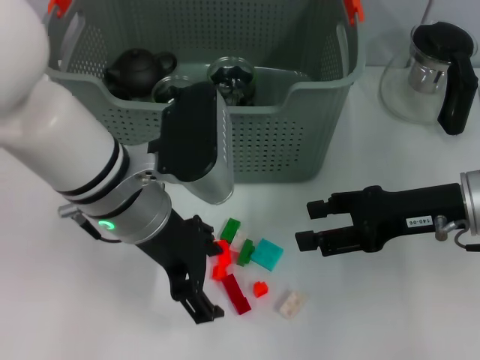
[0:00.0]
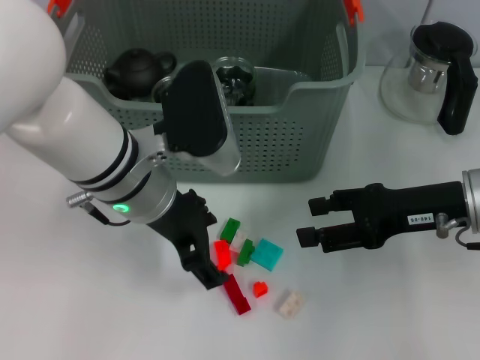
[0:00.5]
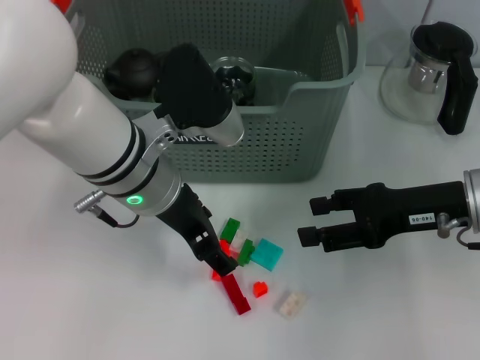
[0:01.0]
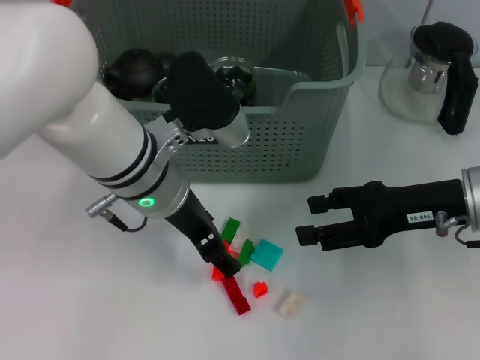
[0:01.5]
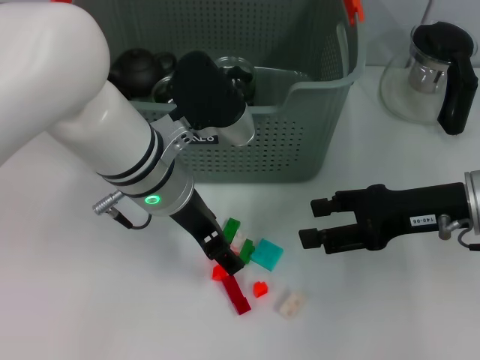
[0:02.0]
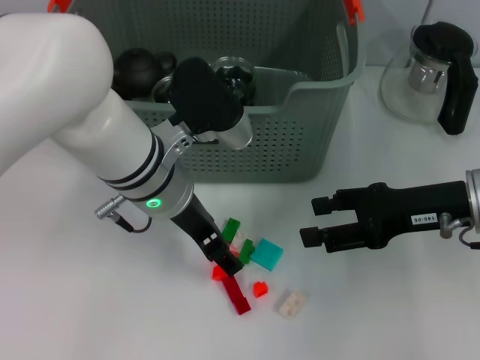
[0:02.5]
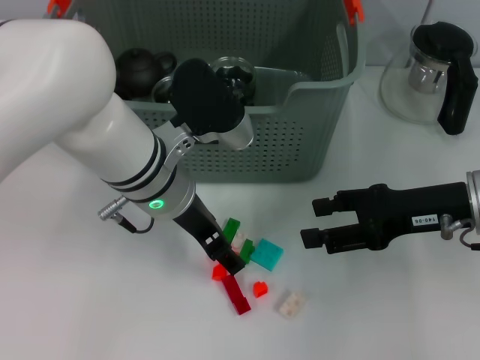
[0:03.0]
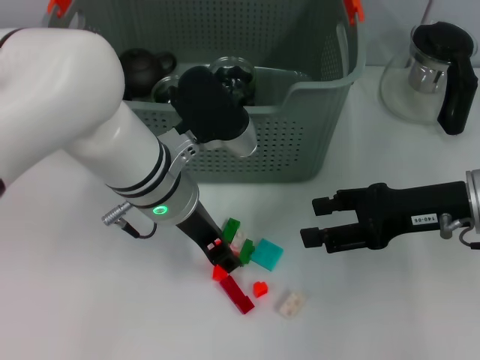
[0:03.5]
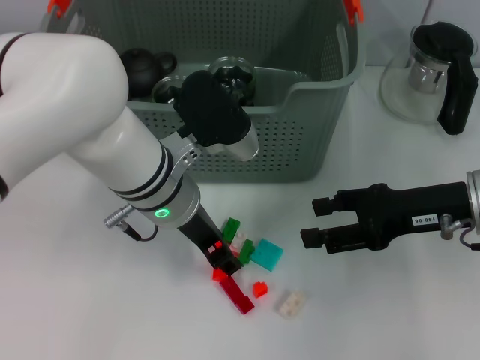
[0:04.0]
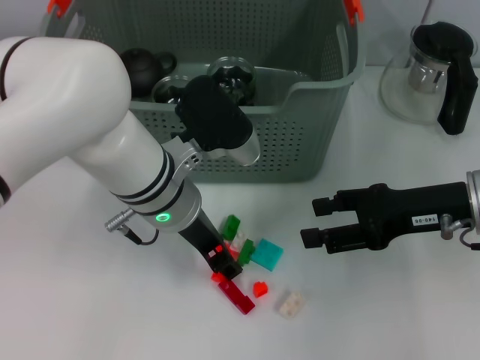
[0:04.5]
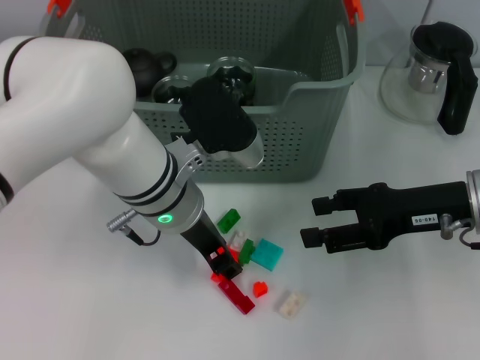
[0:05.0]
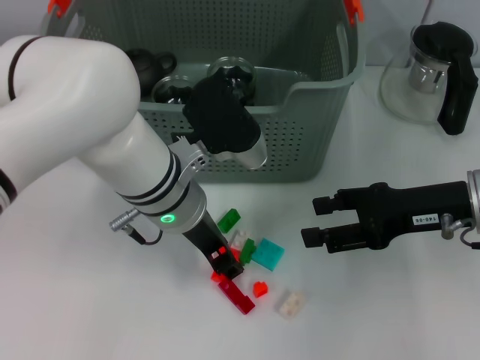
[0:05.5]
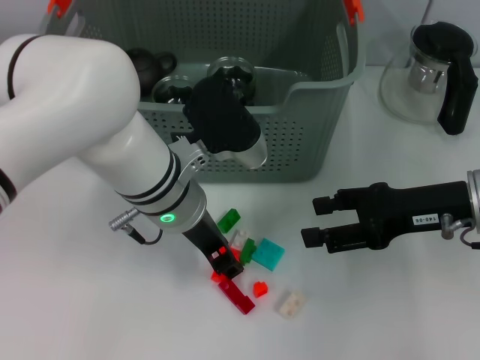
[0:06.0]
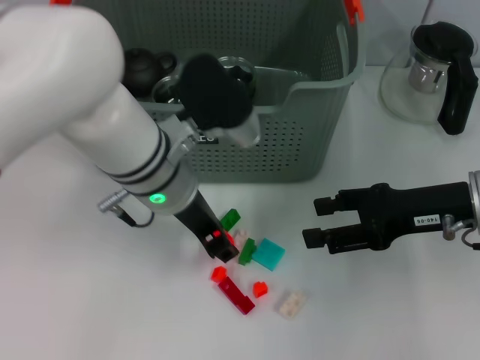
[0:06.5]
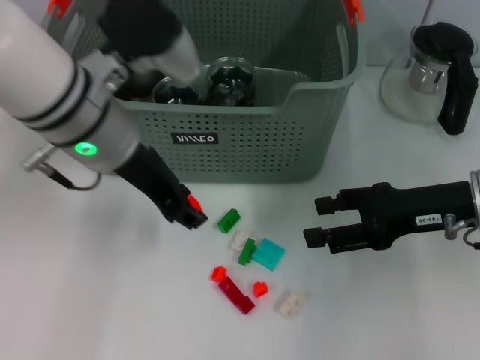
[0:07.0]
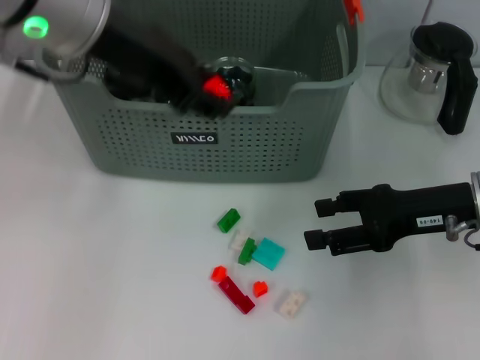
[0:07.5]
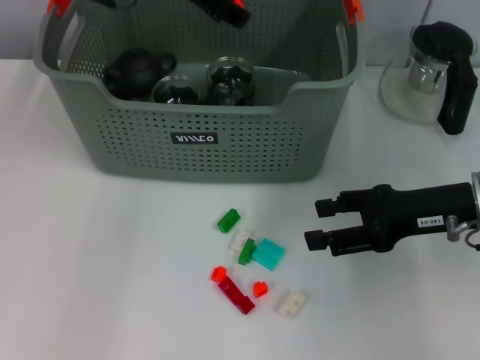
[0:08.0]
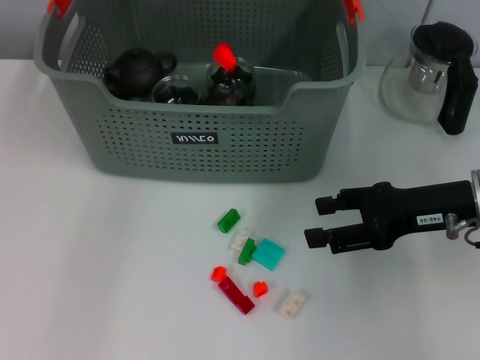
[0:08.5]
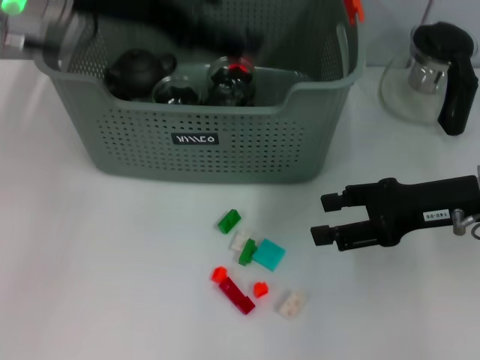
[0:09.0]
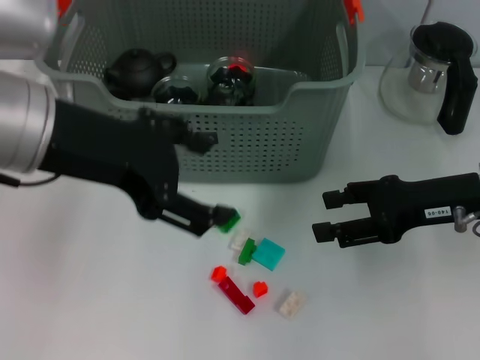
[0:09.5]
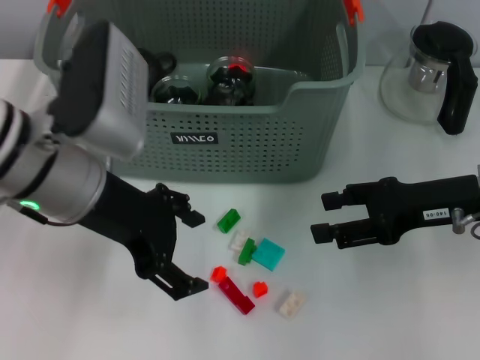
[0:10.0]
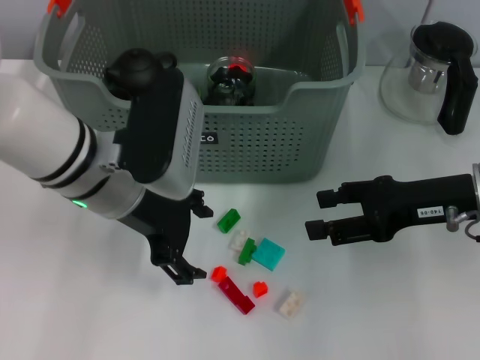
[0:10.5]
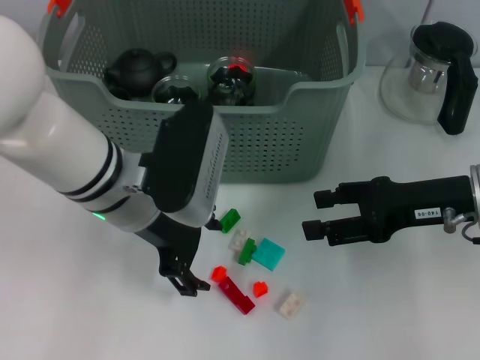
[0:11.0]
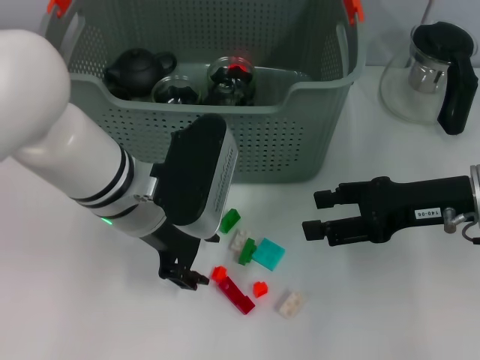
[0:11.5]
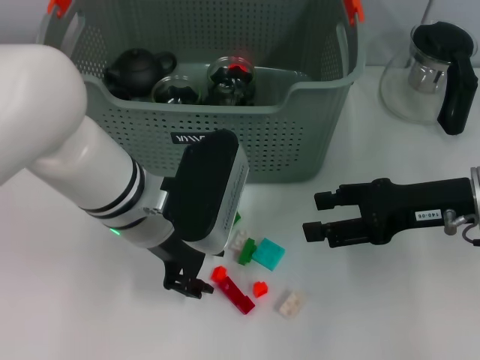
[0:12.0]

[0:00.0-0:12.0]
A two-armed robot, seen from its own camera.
Task of the whole recording: pick up the teacup on the table and place it into the storage bin, pick up the block on the table and place it into the storage bin.
Step, 0:00.0 to 0:06.0: Grasp the orange block with left gripper.
Step, 0:06.5 to 0:08.0: Place the orange block in the storage box with left gripper.
0:02.0 to 0:04.0: The left gripper closes.
0:04.0 to 0:06.0: Both grippers stay put.
0:06.0 to 0:08.0: The left gripper travels upward and forward by roughly 20 cm.
0:08.0 to 0:10.0: The left gripper heads backward and downward, covering about 15 cm, and opens.
0:10.0 to 0:12.0: The left gripper is displaced downward and to the right by about 10 cm, and closes up.

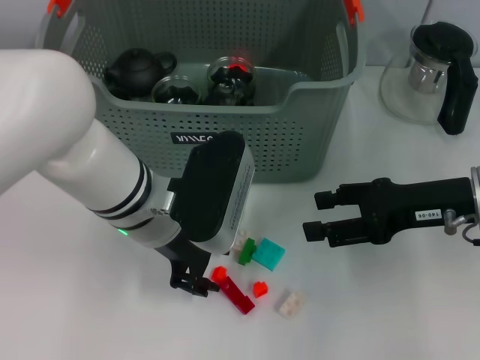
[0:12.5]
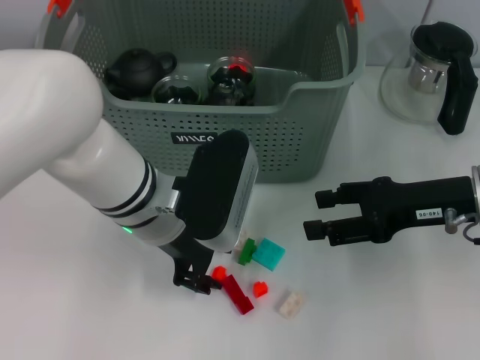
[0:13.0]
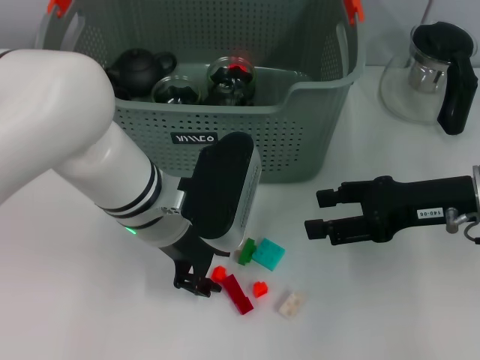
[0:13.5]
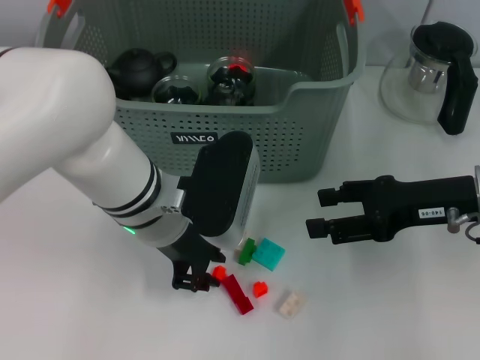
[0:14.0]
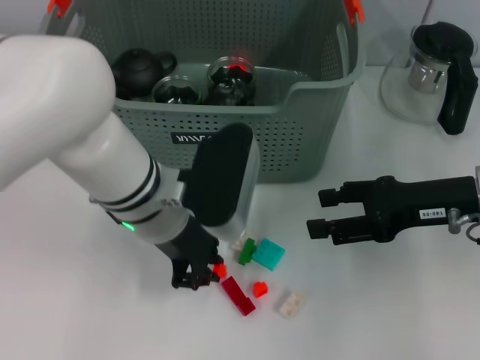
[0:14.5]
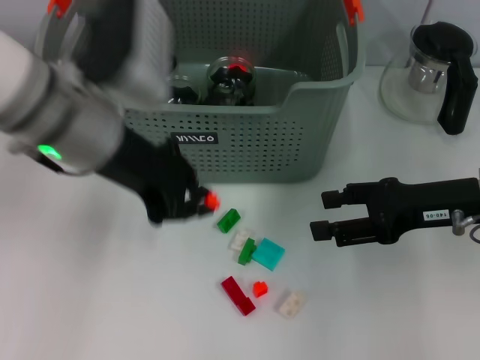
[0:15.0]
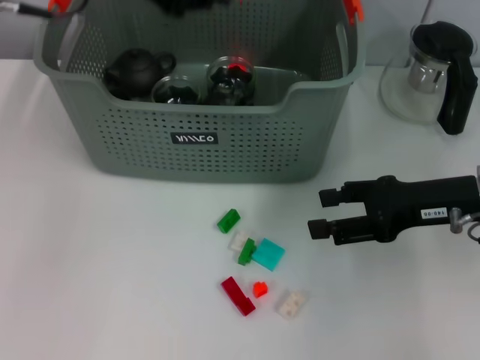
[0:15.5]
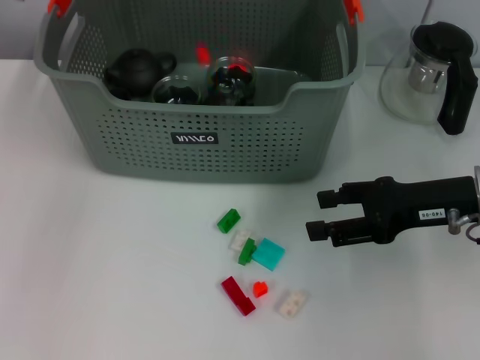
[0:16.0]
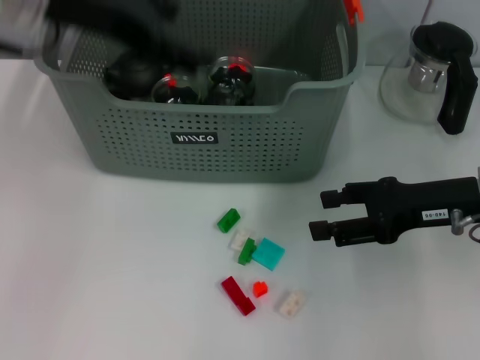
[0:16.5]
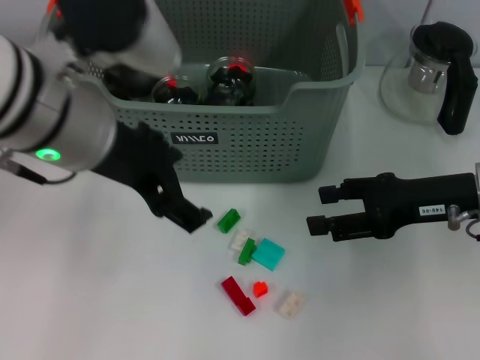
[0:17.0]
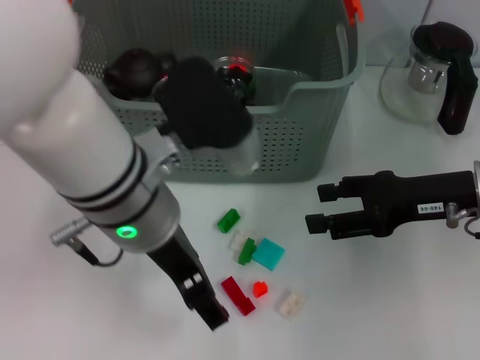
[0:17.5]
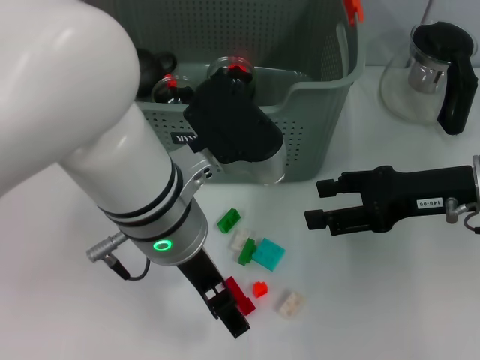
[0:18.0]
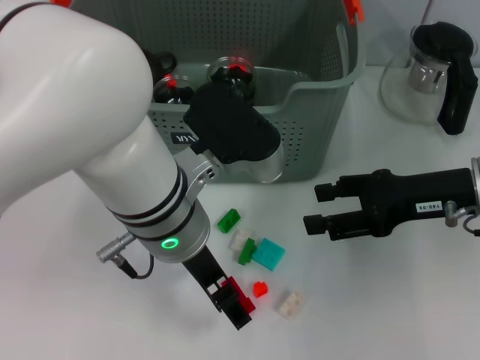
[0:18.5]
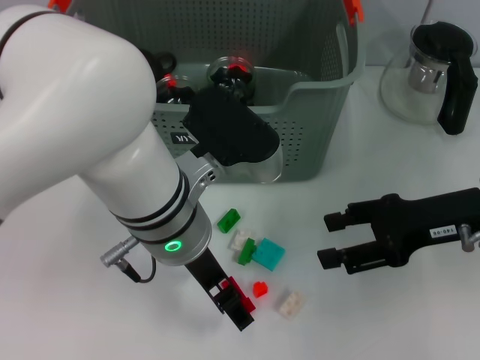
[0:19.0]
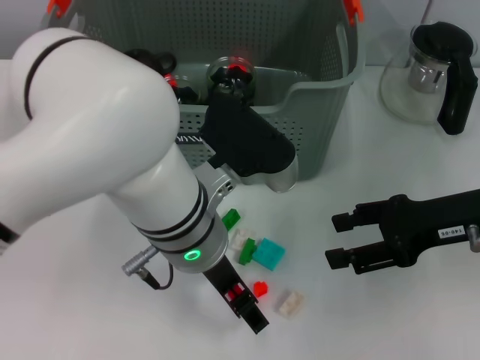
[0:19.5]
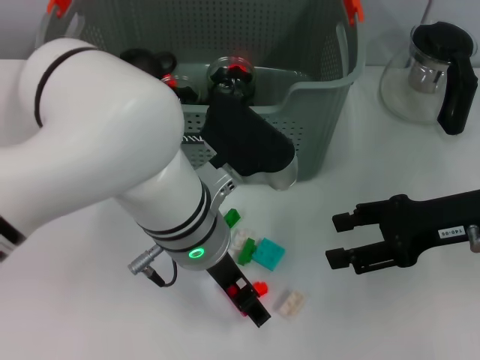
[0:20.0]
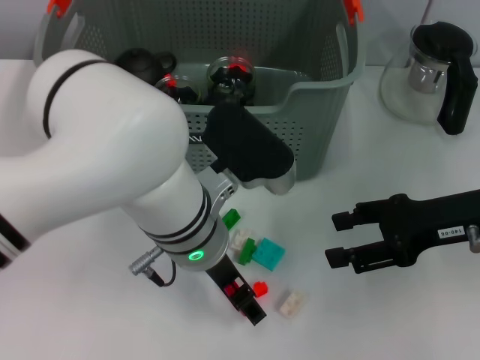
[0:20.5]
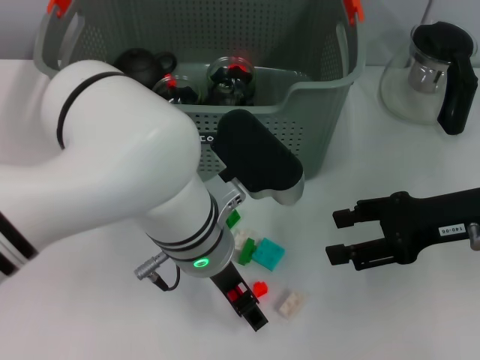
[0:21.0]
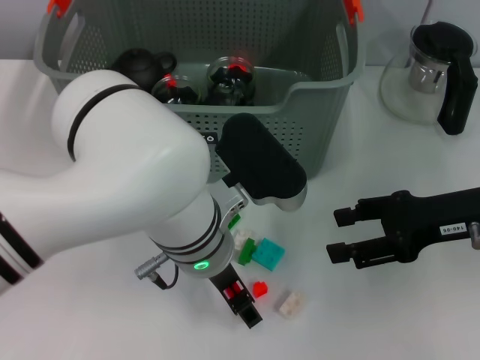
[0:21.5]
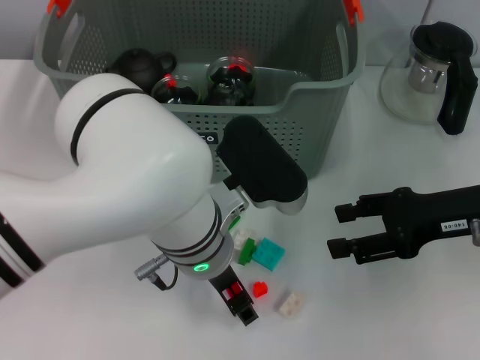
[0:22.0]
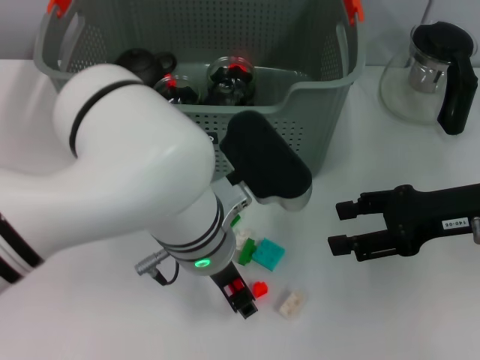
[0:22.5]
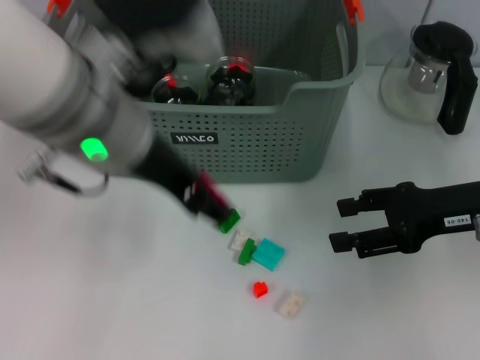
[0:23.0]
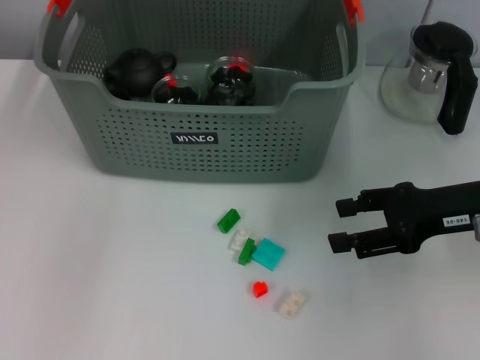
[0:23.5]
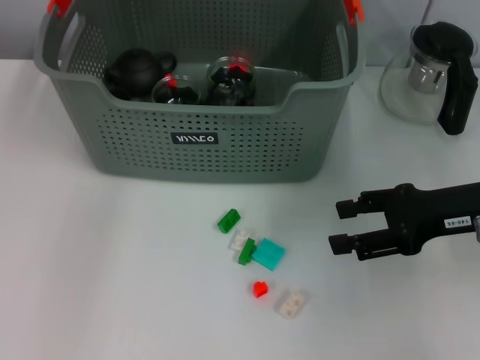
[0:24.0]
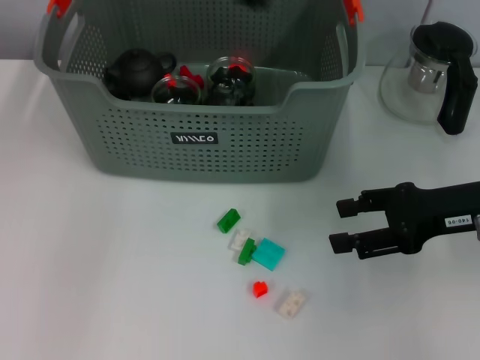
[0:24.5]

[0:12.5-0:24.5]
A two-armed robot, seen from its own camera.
Task of the whole recording: pick up the teacup on the table and place it into the storage bin, pick up the block on the table and place it into the storage bin.
Step, 0:14.5 to 0:15.5: Place the orange block in the storage box with left gripper.
Step, 0:16.5 to 0:22.0: Grasp the red block with left gripper.
Step, 0:22.5 to 0:23.5: Place the red block in the storage box with left gripper.
0:12.5 to 0:14.5: The left gripper closes up.
0:14.5 to 0:16.5: The left gripper heads upward and to the left, covering about 20 cm, and opens up.
0:16.5 to 0:18.5: The left gripper is displaced downward, to the right and backward by roughly 20 cm.
0:20.5 to 0:22.5: There are only small adjustments of the grippers.
0:22.5 to 0:24.5: The left gripper travels upward, to the left and forward by roughly 25 cm.

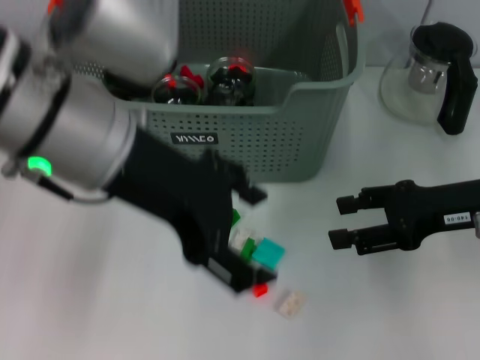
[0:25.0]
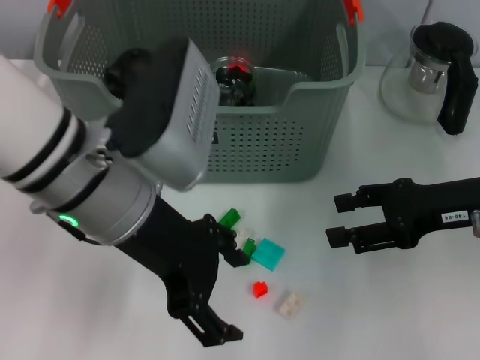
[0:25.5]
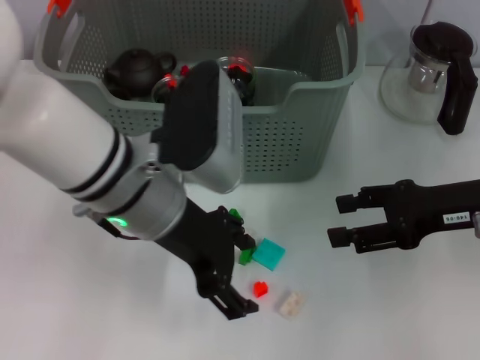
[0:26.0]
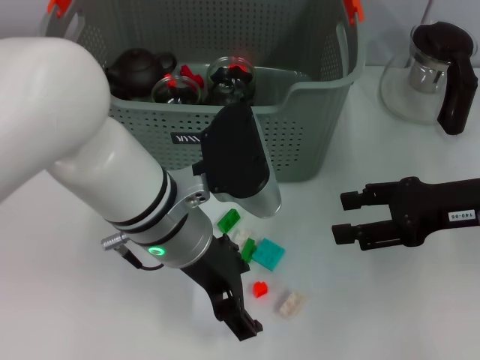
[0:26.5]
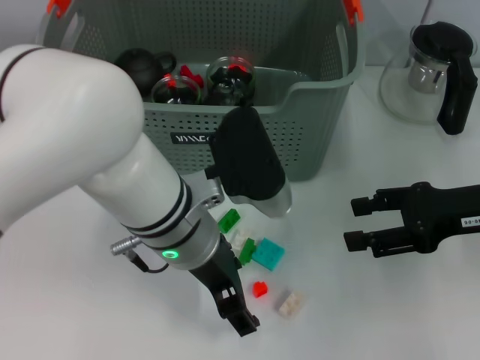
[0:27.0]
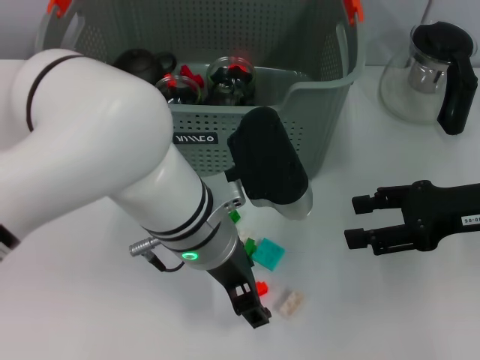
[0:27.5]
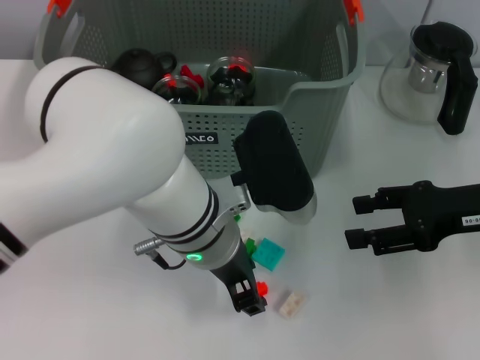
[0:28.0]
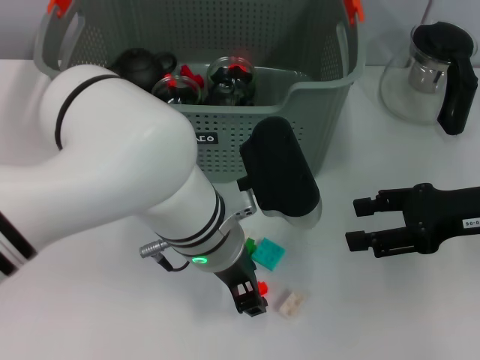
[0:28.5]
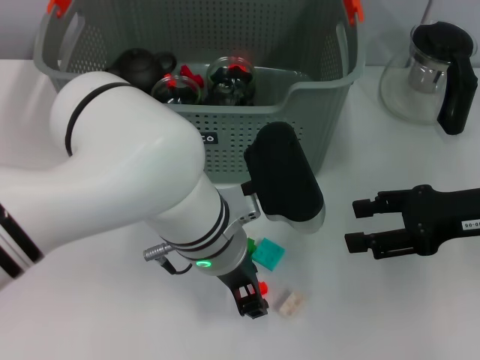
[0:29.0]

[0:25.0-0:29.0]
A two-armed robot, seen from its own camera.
Task of the whole recording: pick up the teacup on the table and place it into the storage bin, pick up the block on the table and place it into the storage bin.
0:25.0 to 0:27.0: The left gripper shifts roughly 15 cm downward and to the right.
0:27.0 to 0:29.0: The left gripper closes its fingers.
